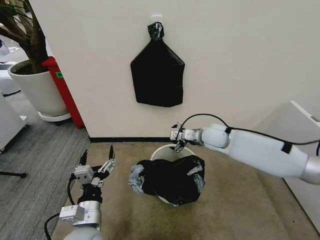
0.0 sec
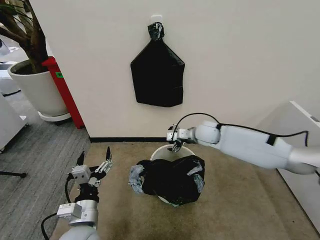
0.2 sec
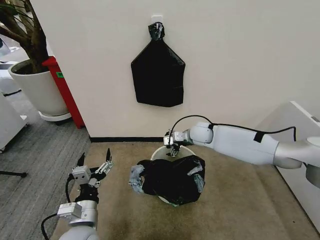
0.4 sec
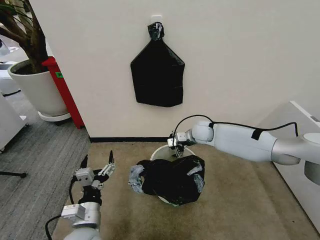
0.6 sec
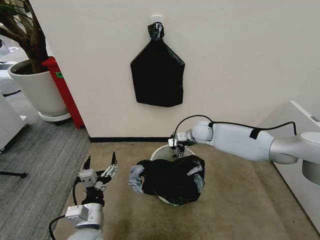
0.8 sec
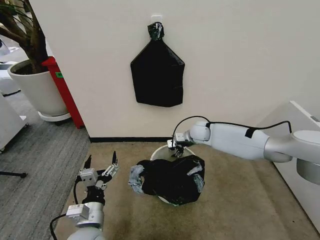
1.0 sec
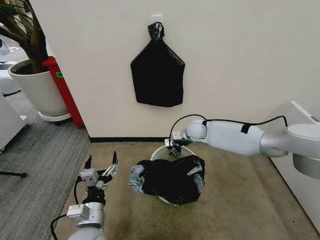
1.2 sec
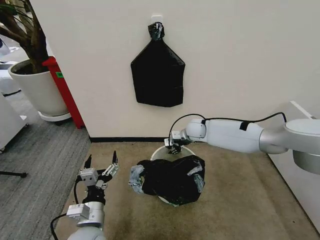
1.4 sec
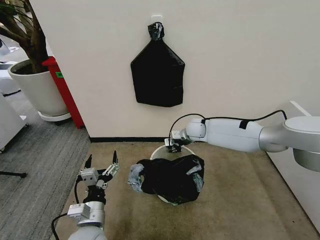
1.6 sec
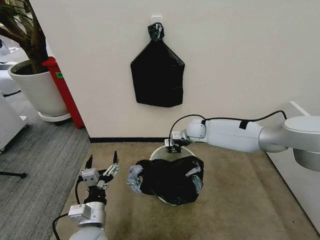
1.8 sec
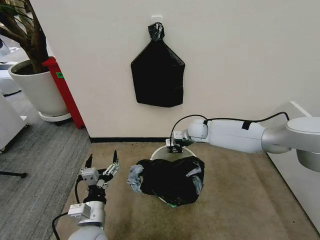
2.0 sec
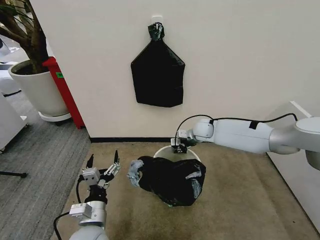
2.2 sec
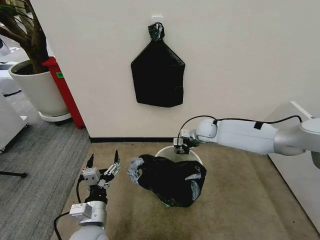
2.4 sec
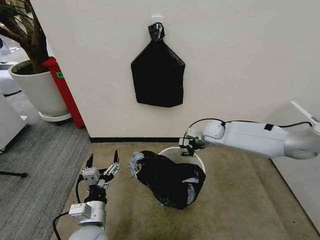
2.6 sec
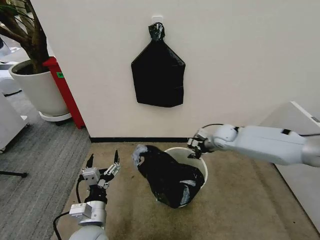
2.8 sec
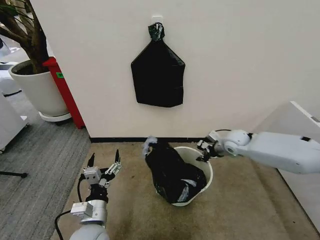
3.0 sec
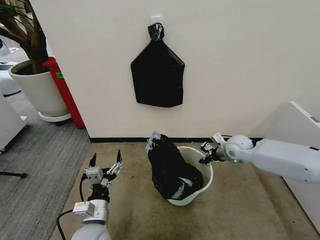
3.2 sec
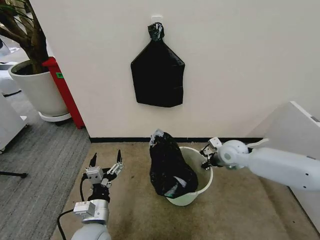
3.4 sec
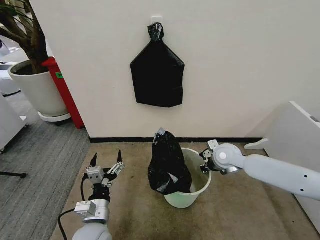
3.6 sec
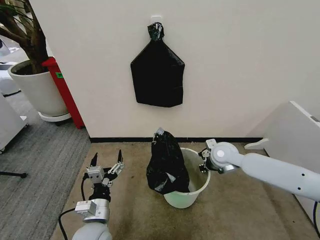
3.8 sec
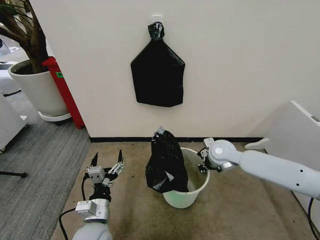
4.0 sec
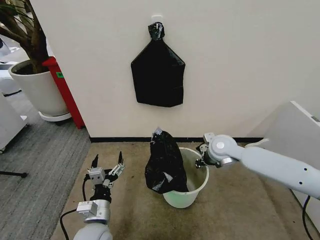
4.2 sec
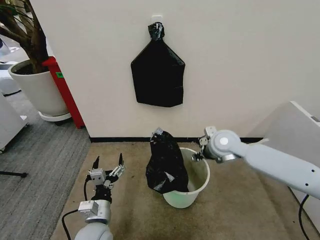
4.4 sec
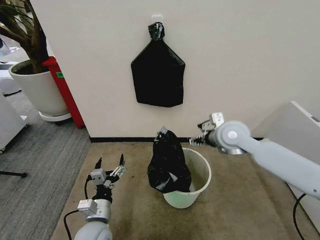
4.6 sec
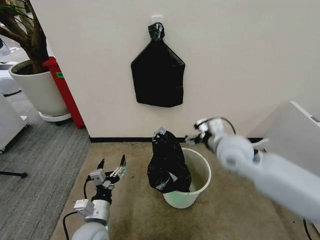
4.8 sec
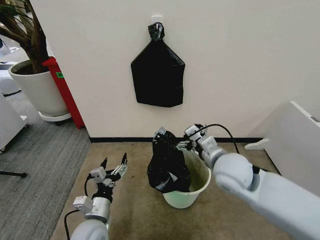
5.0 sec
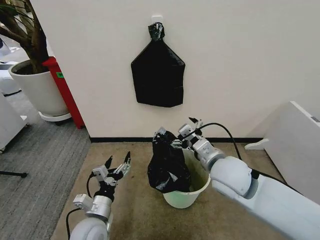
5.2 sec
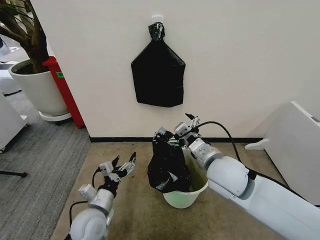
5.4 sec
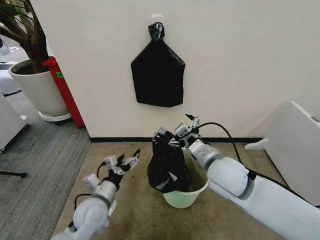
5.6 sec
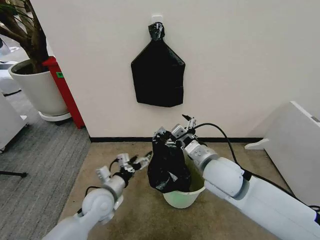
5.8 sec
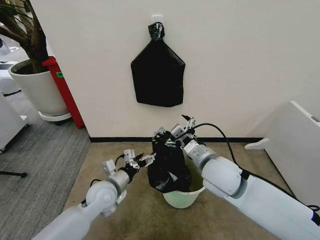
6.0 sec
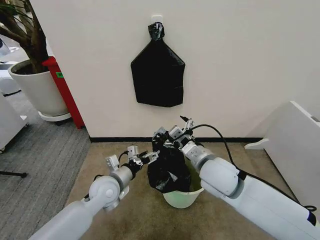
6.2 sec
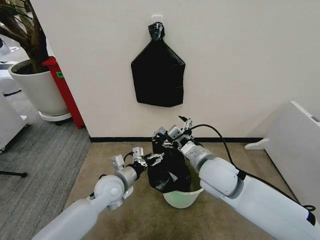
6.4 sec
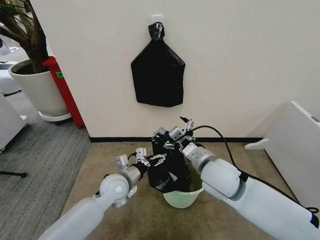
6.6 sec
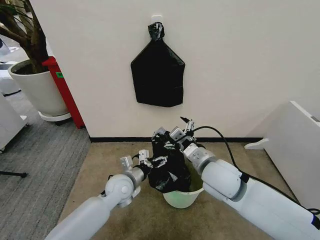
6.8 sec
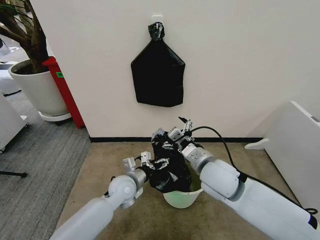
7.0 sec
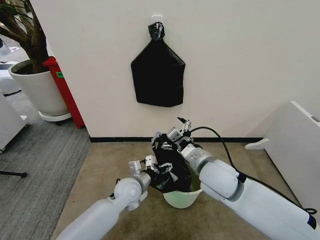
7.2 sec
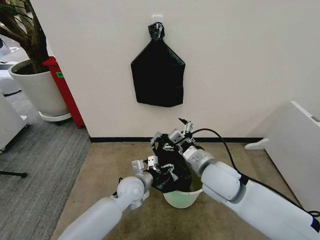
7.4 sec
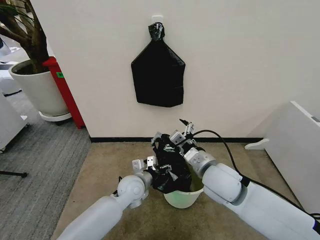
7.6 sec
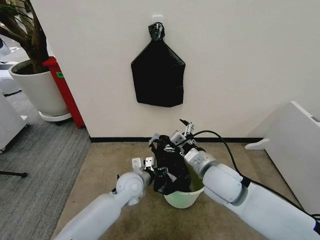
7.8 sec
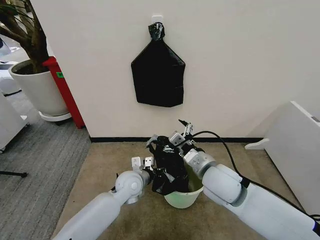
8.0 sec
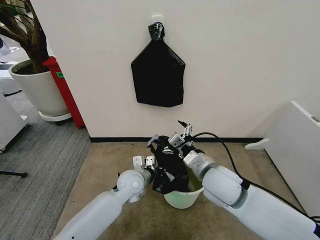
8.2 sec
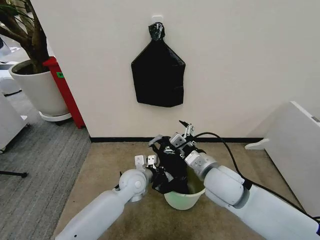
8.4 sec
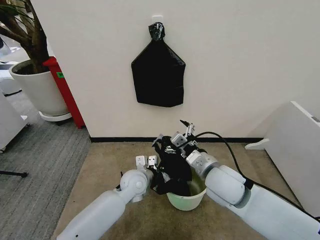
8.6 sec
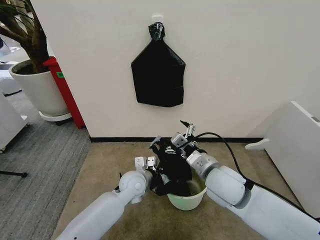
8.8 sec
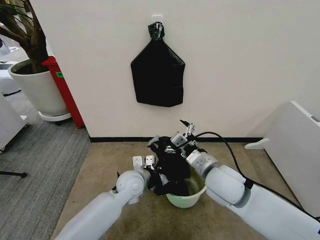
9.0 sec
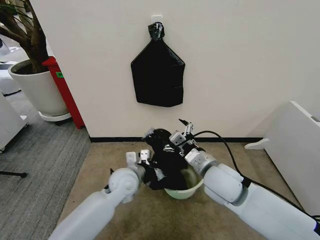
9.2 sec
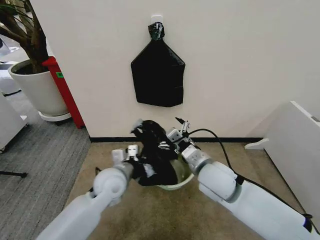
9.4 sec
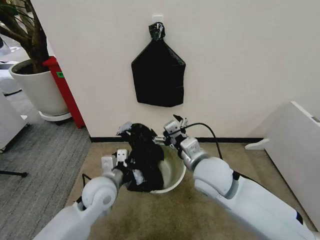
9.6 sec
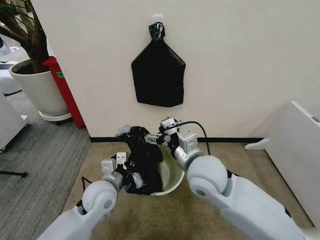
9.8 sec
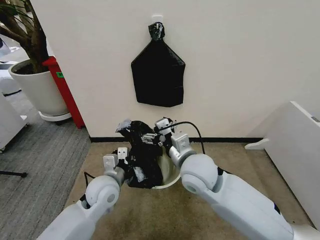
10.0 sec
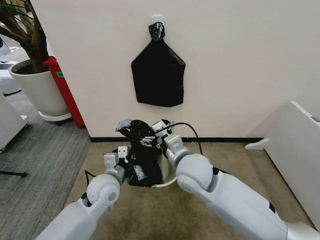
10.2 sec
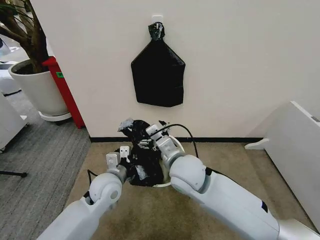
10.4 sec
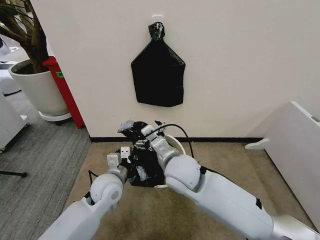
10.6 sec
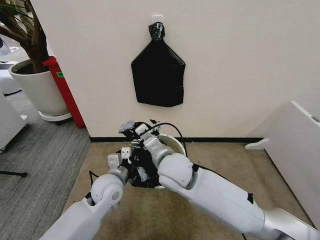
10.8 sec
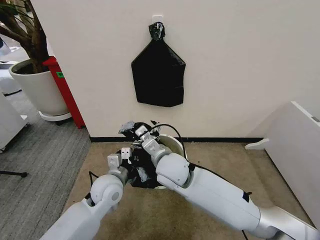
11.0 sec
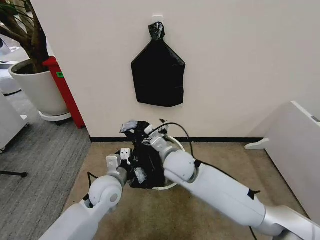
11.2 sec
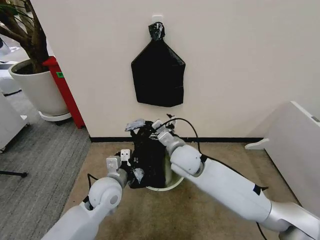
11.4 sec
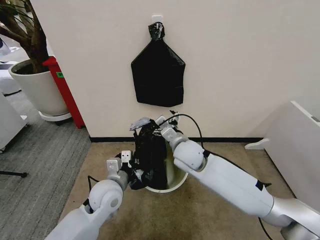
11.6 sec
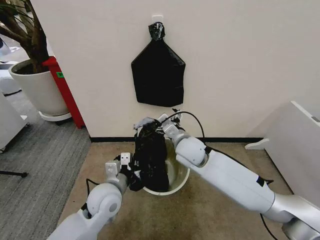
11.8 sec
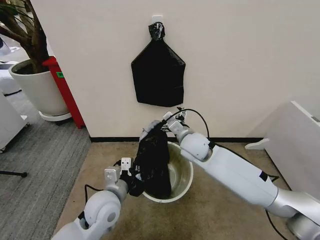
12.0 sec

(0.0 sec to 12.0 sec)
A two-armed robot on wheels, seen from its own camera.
Task of the whole recording: Place the garbage bag over the trash bin.
0.0 sec - 1.6 sec: The right gripper travels forward by approximately 10 cm, and closes.
1.6 sec - 3.0 sec: The right gripper travels to the right and backward by about 15 cm.
3.0 sec - 4.4 sec: The right gripper heads to the left, upward and backward, covering roughly 15 cm, and opens its fingers.
4.4 sec - 6.0 sec: The left gripper shifts approximately 10 cm forward. The right gripper travels backward and to the left by roughly 15 cm, and opens.
6.0 sec - 7.6 sec: The left gripper moves to the right, about 10 cm.
7.6 sec - 9.0 sec: The left gripper closes its fingers.
9.0 sec - 10.4 sec: The grippers both shift to the left by approximately 10 cm.
10.4 sec - 12.0 sec: The left gripper is displaced backward by approximately 5 cm. The right gripper shifts some 10 cm forward.

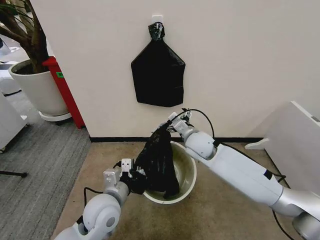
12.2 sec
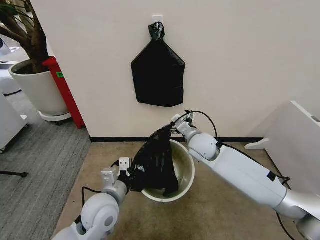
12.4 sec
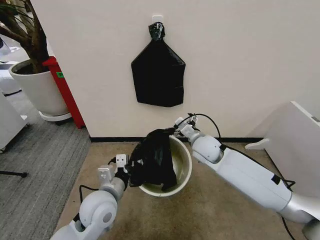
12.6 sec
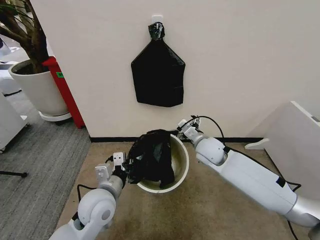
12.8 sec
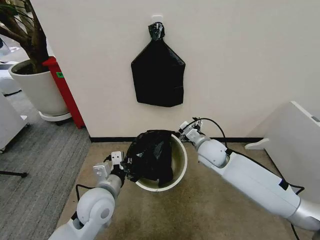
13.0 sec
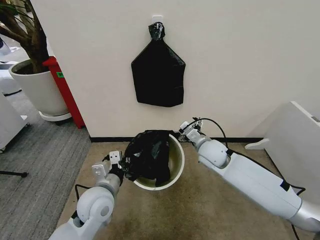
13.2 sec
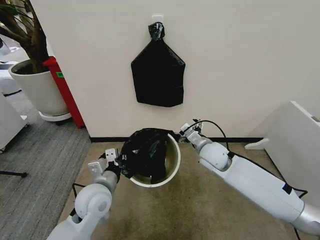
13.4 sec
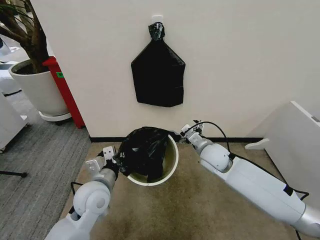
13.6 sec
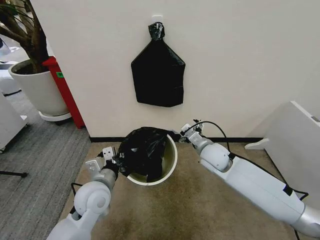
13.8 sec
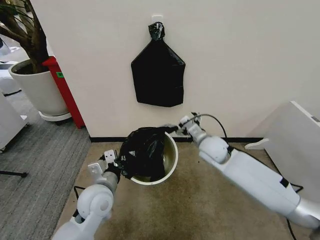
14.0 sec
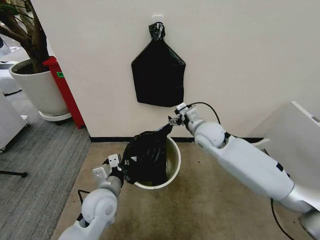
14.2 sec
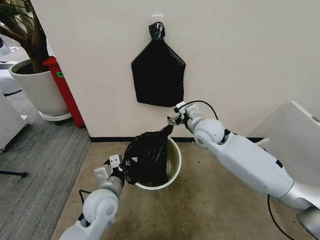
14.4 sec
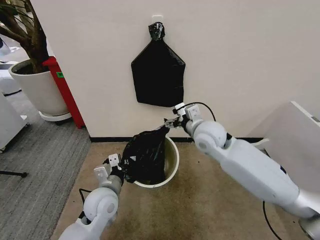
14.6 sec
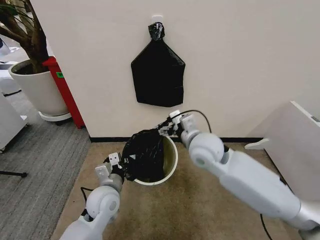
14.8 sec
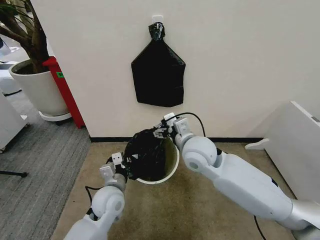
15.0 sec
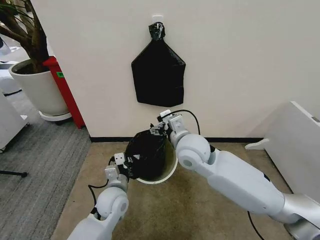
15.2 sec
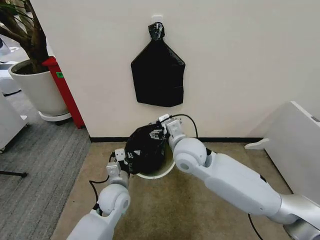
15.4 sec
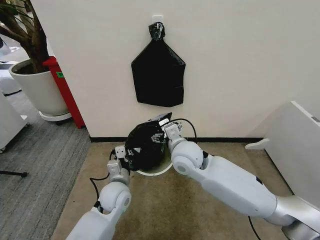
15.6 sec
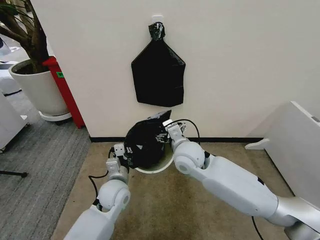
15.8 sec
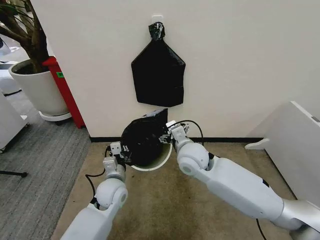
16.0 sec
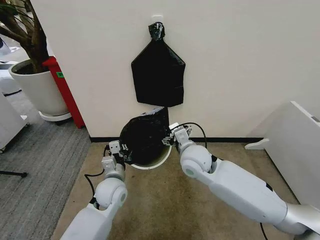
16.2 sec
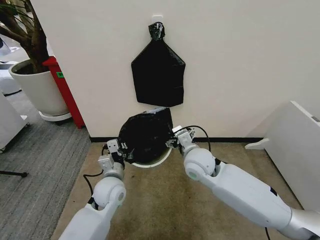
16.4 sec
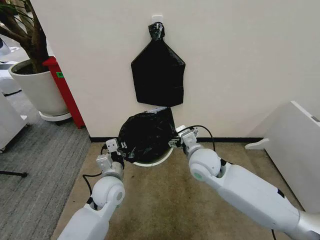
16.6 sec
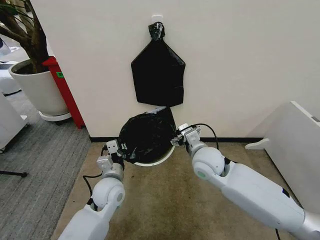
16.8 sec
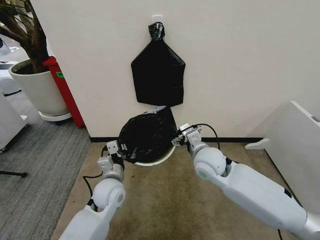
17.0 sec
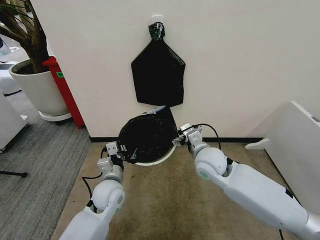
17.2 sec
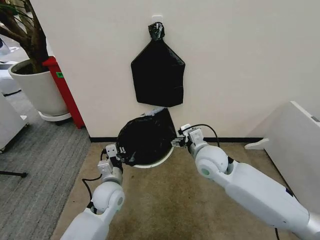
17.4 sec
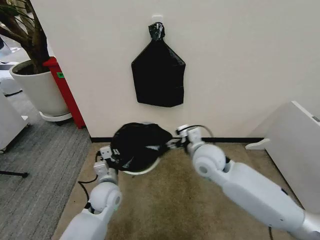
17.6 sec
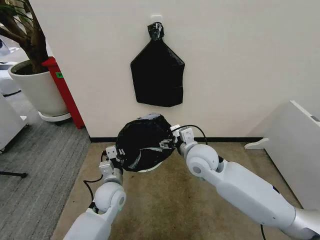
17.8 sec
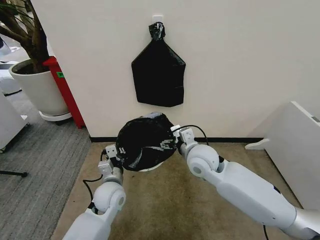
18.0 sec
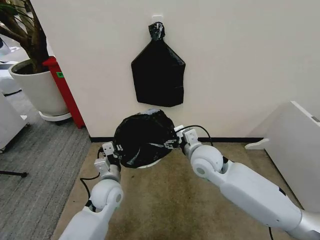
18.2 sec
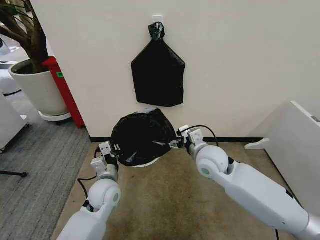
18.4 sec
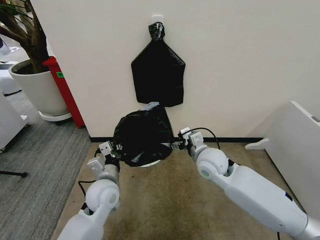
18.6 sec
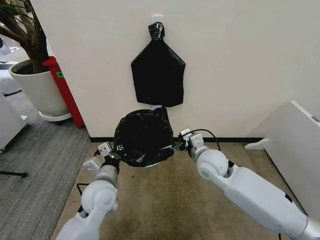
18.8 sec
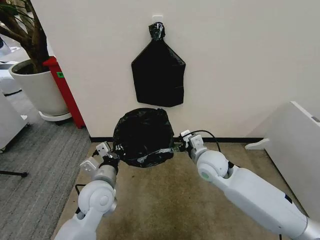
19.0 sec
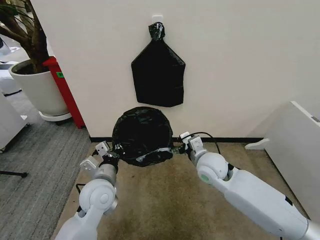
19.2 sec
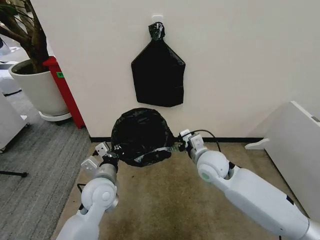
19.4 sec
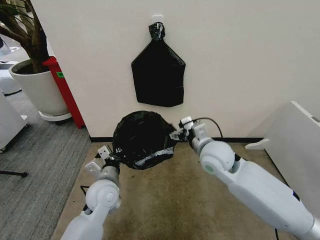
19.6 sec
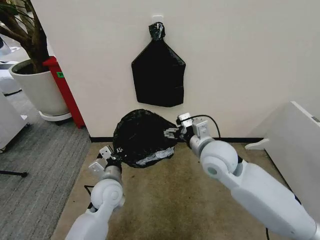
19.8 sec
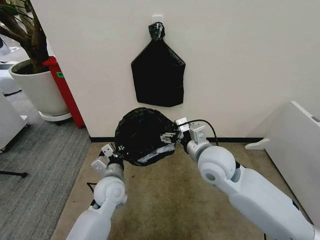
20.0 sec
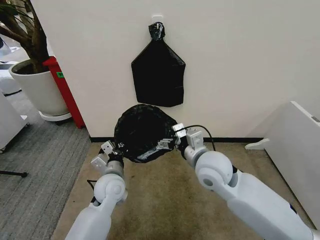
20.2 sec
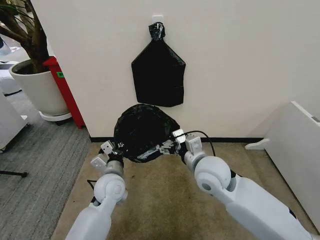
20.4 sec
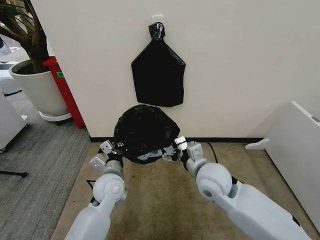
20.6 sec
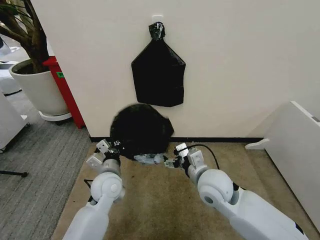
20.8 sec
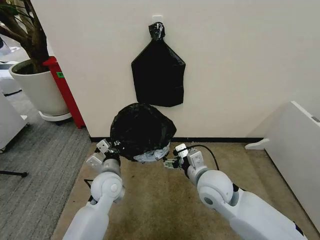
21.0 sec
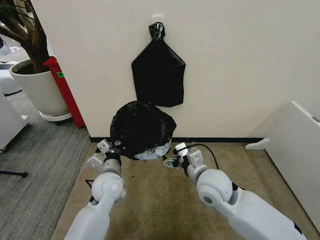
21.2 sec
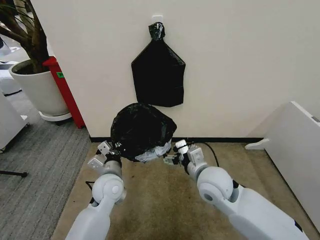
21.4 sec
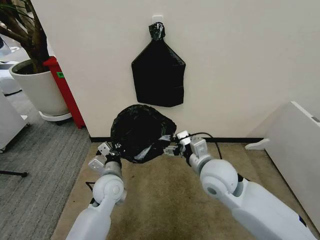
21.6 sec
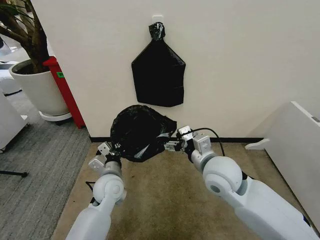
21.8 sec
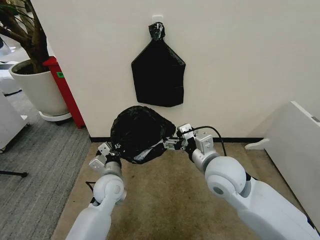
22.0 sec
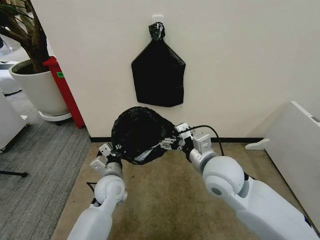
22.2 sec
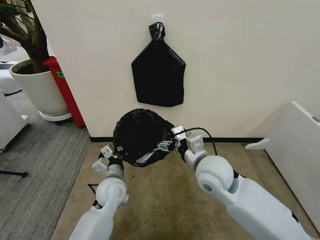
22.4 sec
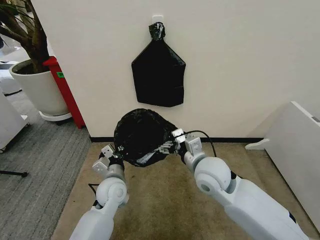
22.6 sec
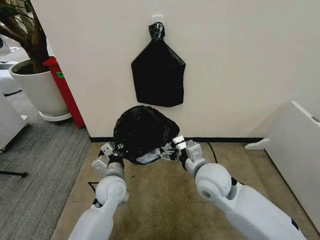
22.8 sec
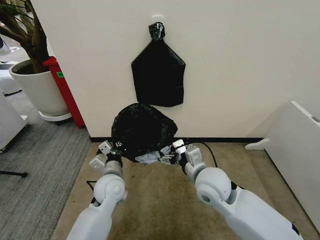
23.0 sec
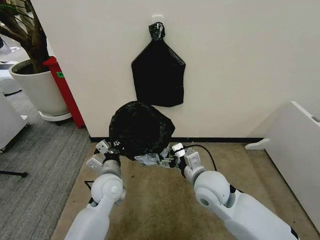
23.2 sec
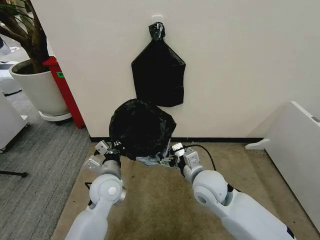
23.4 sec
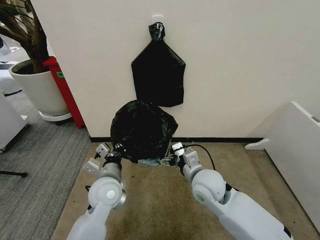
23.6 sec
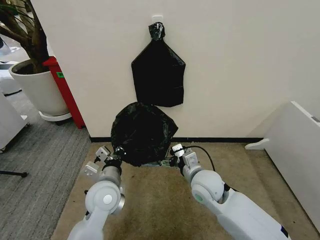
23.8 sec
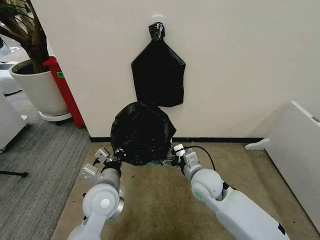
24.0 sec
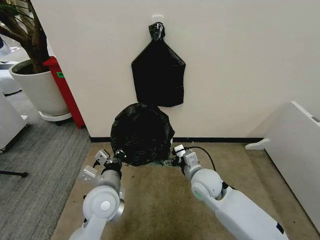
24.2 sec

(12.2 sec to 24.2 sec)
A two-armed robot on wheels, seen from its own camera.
Task of the whole recording: Place the garbage bag over the trash bin.
12.2 sec - 13.8 sec: The left gripper moves about 5 cm. Meanwhile the right gripper moves to the right, approximately 5 cm.
13.8 sec - 15.2 sec: The left gripper shifts about 5 cm downward. Meanwhile the right gripper shifts roughly 15 cm upward and to the left.
15.2 sec - 16.6 sec: The right gripper moves downward, some 5 cm.
16.6 sec - 18.2 sec: The grippers make only small movements.
18.2 sec - 19.8 sec: The right gripper shifts approximately 5 cm upward.
19.8 sec - 21.2 sec: The right gripper shifts about 10 cm downward and backward.
22.6 sec - 24.2 sec: The left gripper heads upward and backward, covering roughly 10 cm, while the right gripper heads downward, covering roughly 10 cm.
